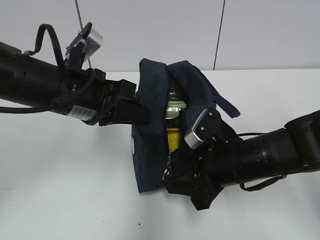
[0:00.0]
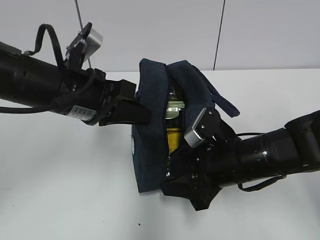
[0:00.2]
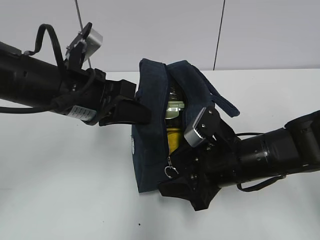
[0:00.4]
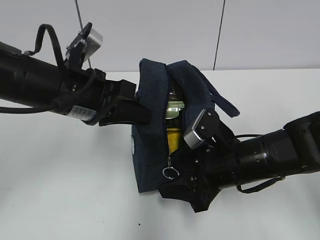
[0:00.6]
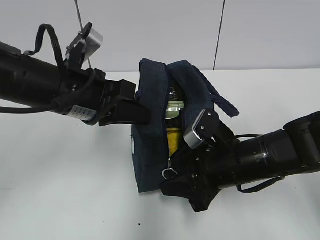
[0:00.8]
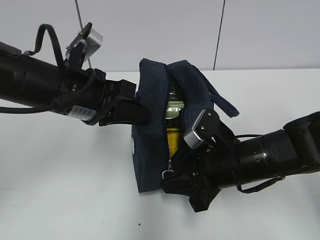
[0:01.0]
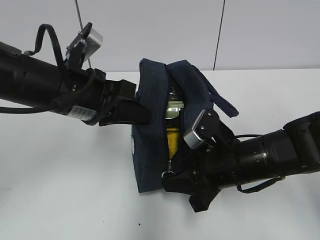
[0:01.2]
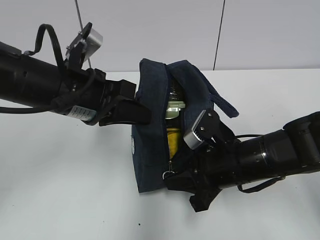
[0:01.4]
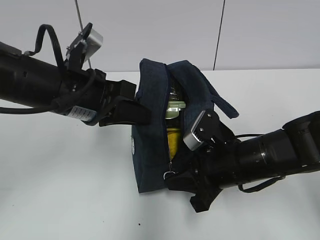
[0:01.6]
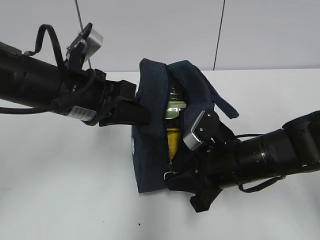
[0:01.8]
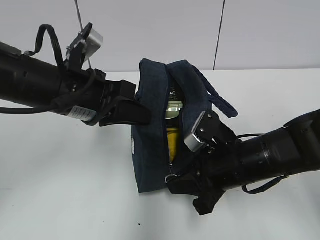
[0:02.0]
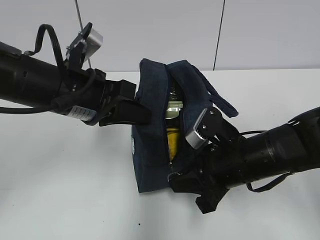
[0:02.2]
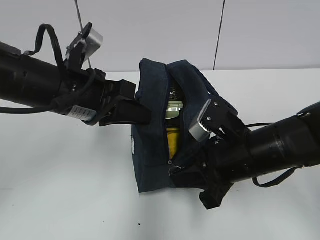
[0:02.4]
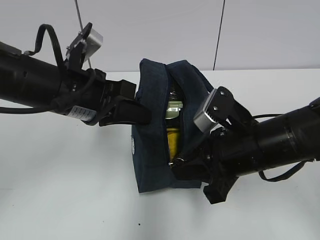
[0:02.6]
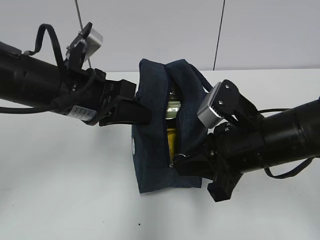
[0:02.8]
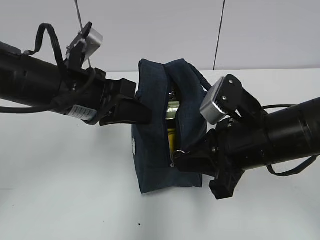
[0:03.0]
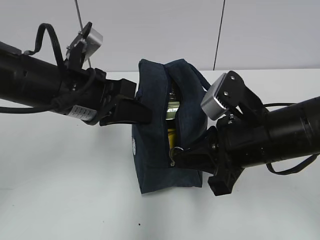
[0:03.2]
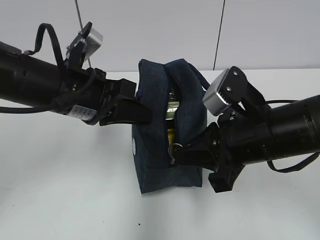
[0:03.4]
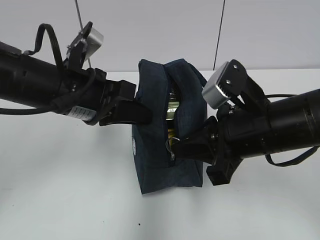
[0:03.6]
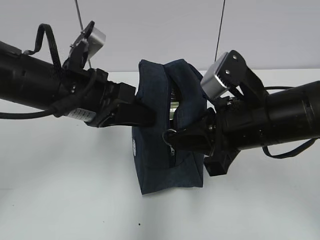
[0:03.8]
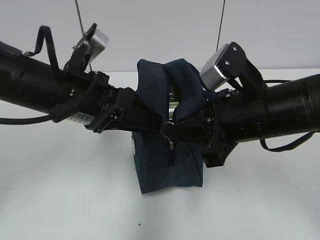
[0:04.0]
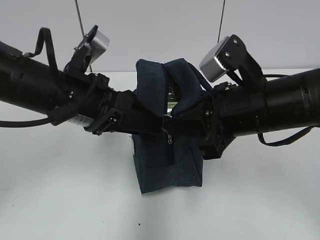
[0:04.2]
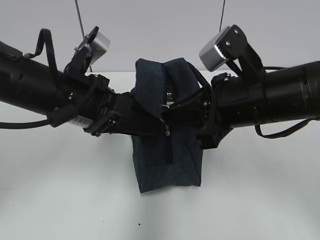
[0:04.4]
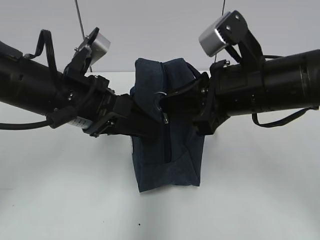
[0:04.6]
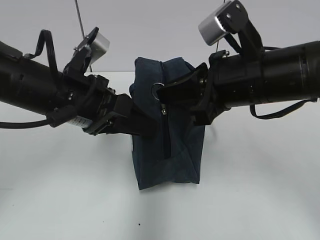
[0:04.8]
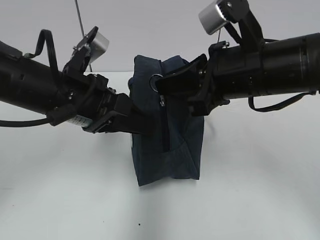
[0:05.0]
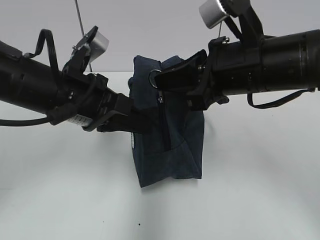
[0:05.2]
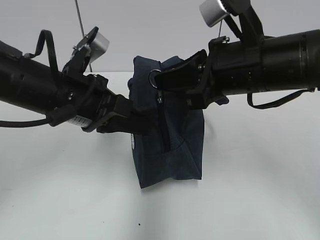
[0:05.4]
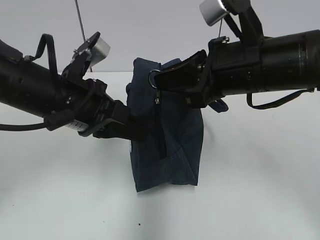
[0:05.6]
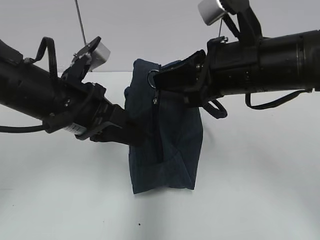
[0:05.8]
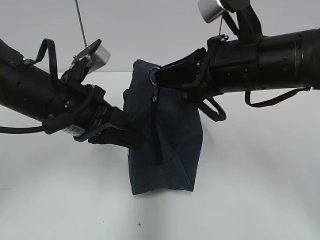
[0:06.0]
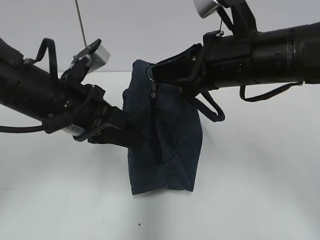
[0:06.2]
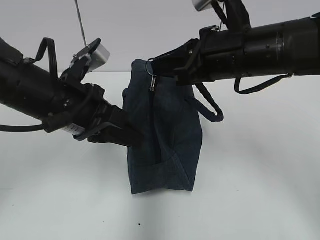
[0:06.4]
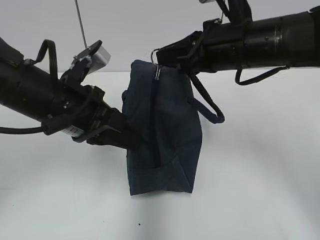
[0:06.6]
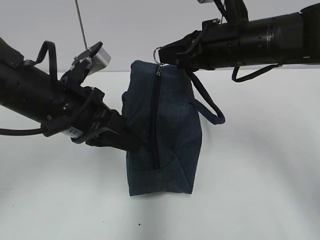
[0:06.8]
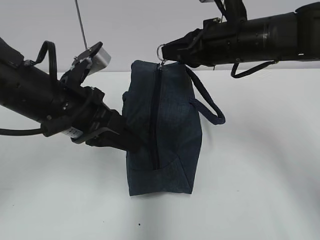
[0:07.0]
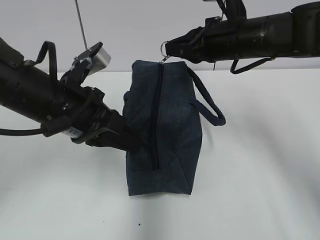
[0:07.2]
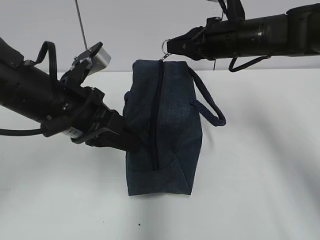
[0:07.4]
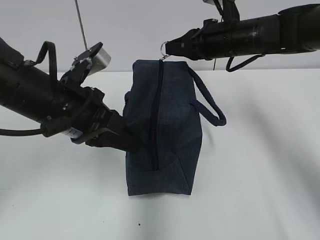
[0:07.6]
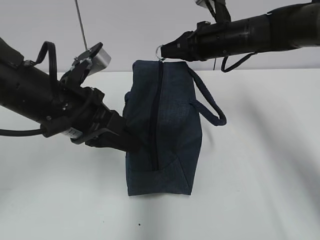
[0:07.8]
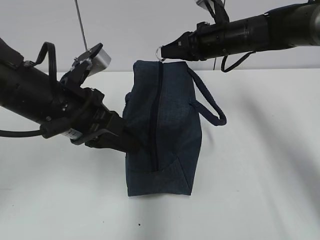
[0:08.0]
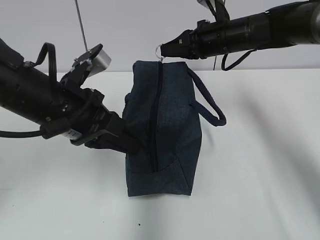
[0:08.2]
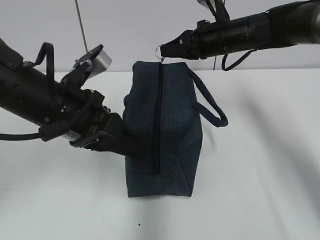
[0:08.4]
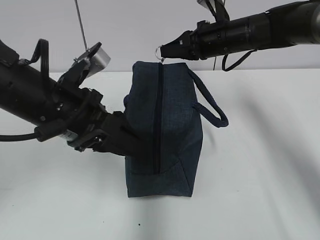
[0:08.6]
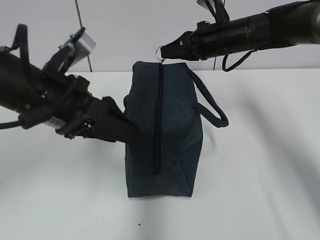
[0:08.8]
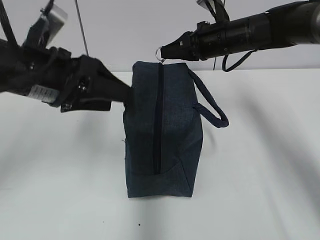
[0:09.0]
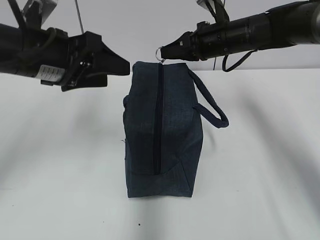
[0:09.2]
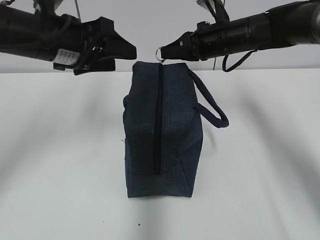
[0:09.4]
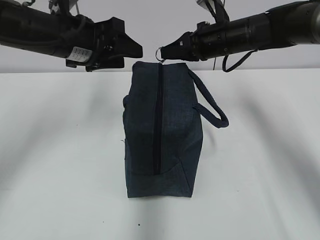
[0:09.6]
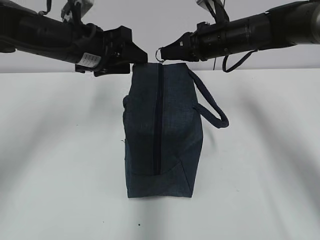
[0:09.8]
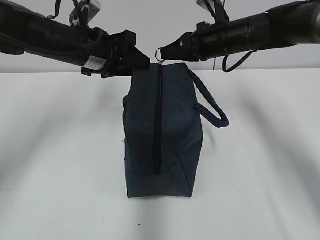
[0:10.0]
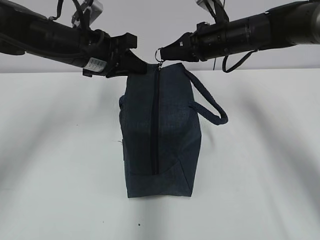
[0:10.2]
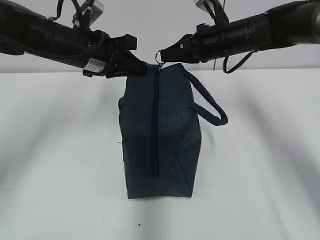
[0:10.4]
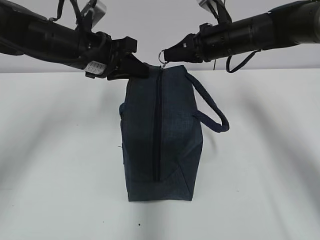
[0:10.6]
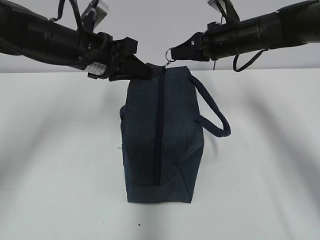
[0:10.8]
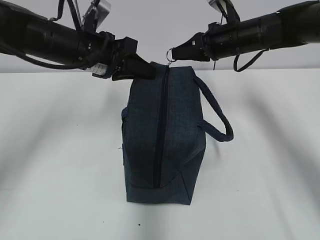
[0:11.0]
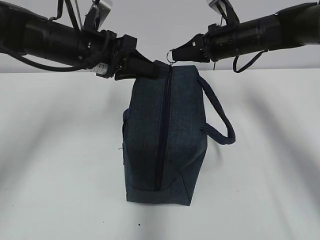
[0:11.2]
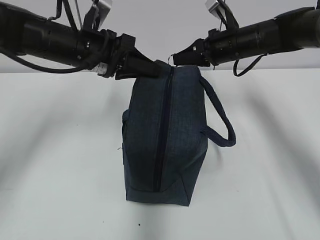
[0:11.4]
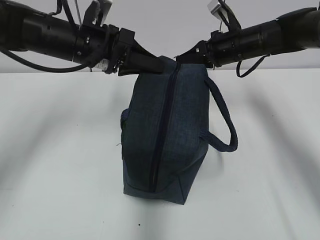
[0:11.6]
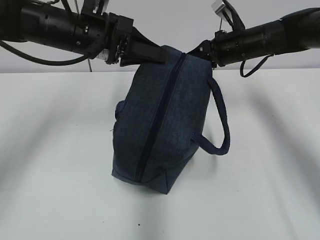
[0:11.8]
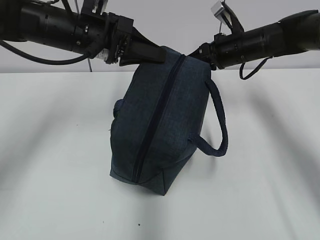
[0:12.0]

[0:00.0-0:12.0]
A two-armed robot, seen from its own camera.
0:00.0 to 0:01.6: The right gripper closes its fingers.
0:01.6 to 0:03.0: The right gripper shifts about 10 cm upward.
0:03.0 to 0:04.4: The left gripper opens up; the right gripper ends up roughly 5 cm from where it was.
0:04.4 to 0:06.0: The left gripper closes up.
0:06.0 to 0:07.6: The right gripper shifts roughly 15 cm forward.
0:07.6 to 0:09.0: The left gripper shifts by some 5 cm, and opens its fingers.
0:09.0 to 0:10.4: The left gripper travels forward by approximately 10 cm, and closes up.
0:10.4 to 0:12.0: The right gripper ends up approximately 5 cm from where it was.

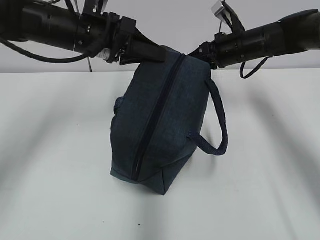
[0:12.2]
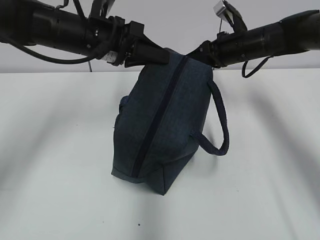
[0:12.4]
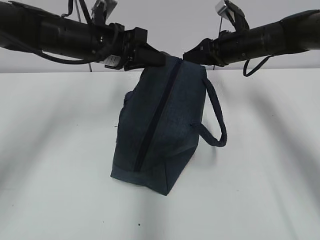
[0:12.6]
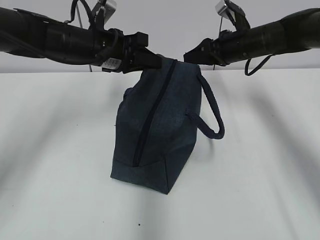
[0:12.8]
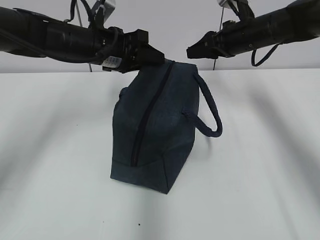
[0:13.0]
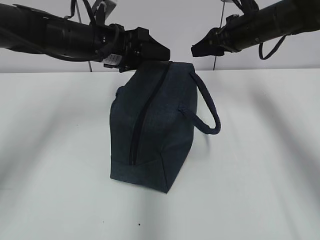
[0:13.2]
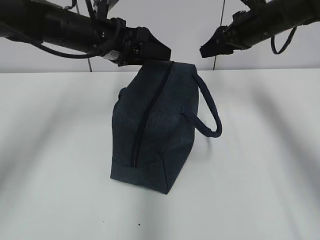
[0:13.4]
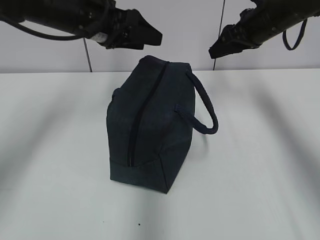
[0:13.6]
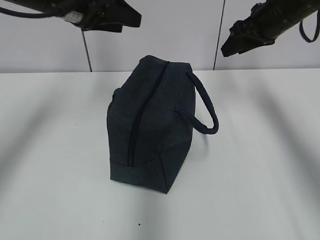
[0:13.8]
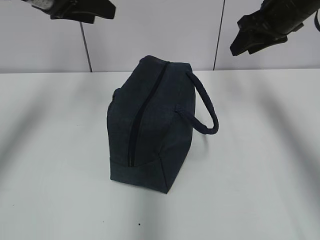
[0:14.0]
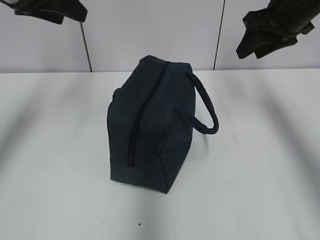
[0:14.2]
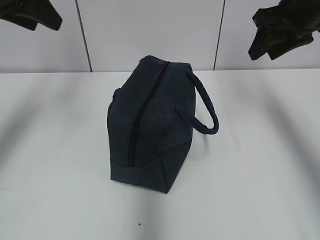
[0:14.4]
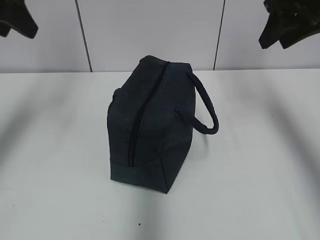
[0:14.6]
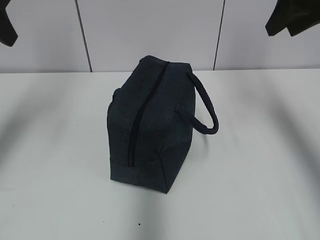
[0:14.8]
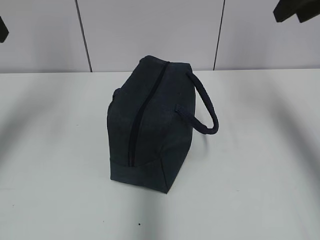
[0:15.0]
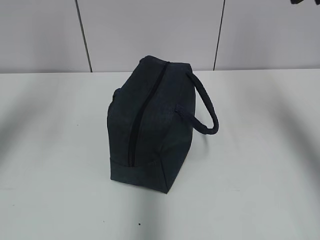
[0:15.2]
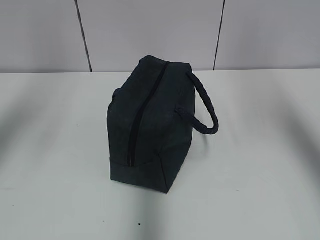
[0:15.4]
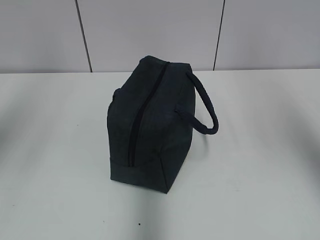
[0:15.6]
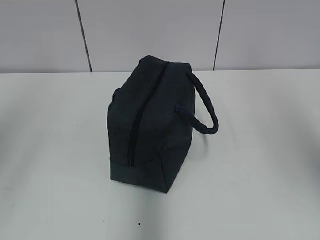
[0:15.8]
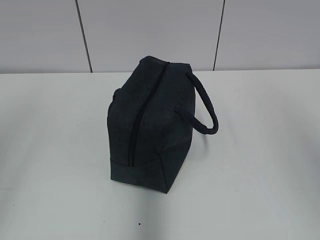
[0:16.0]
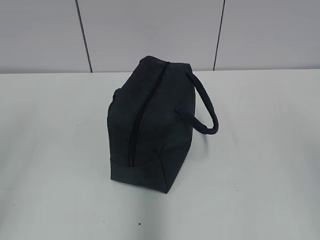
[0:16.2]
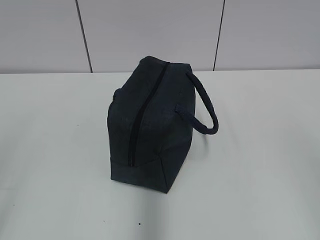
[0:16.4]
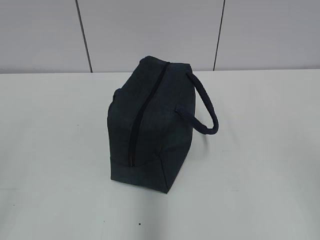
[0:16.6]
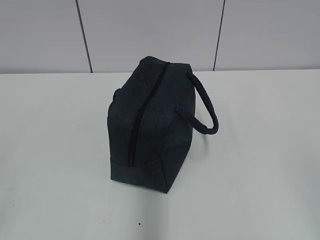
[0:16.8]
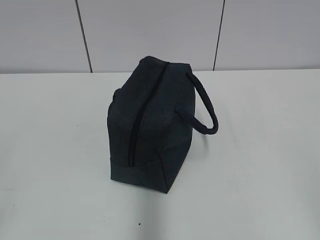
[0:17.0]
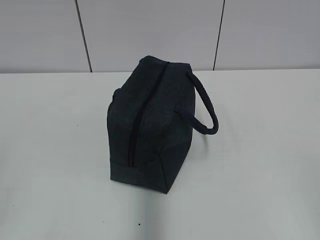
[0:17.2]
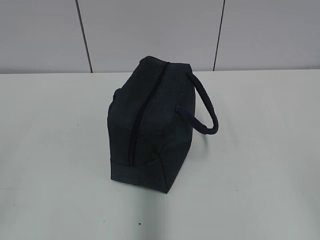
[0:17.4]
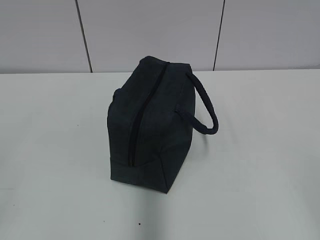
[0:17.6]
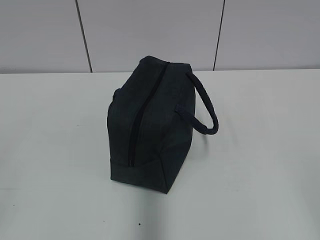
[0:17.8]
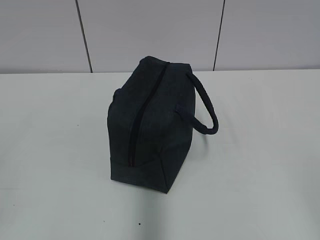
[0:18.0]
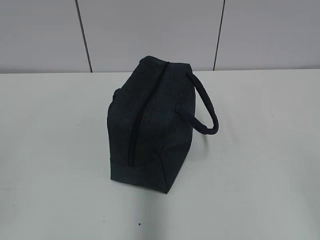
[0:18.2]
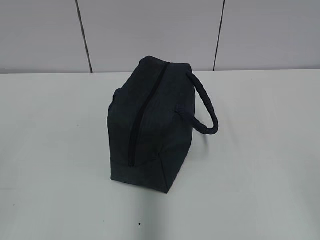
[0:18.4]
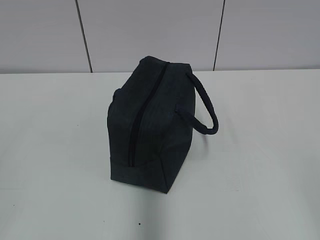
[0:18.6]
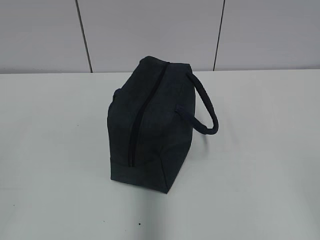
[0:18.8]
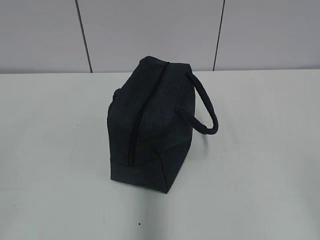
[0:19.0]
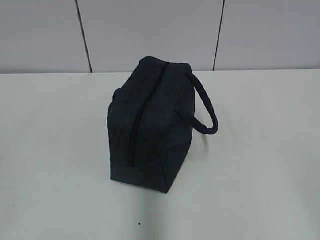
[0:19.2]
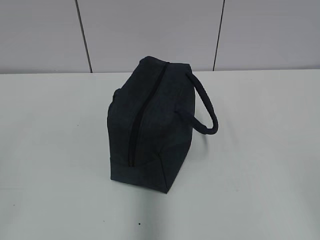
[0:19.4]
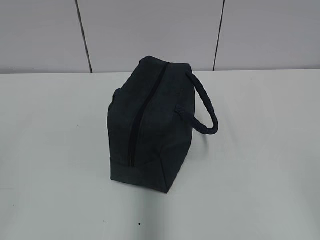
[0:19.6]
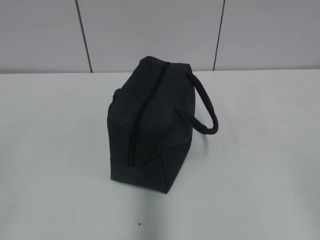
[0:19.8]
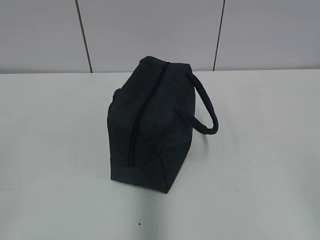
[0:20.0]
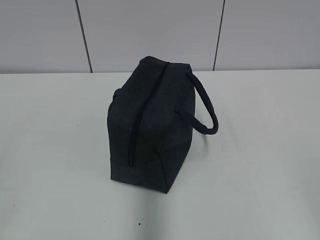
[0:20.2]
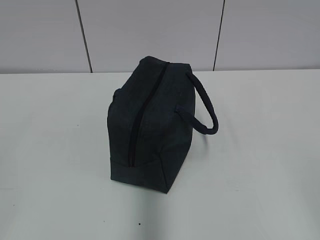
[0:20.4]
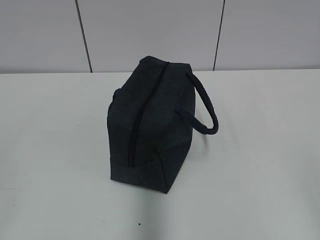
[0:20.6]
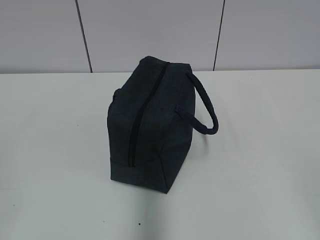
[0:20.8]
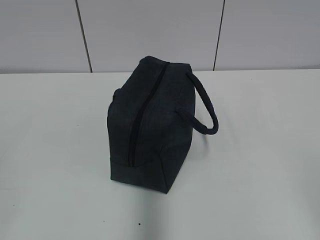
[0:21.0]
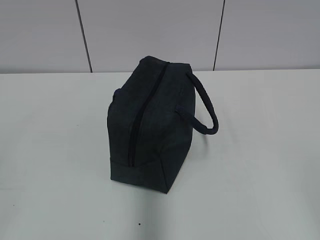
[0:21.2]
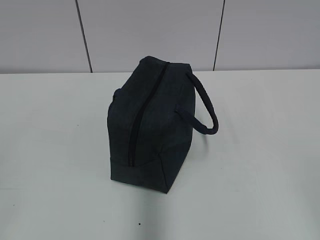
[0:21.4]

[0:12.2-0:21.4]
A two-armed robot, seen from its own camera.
Step, 0:12.8 to 0:13.2: Grab the lunch bag with your left hand.
0:12.2 to 0:13.8: The right gripper shifts roughly 10 cm upward, and opens its fingers; the left gripper heads upward, covering roughly 5 cm, and opens.
0:13.8 to 0:15.2: The right gripper is displaced upward and backward by about 20 cm, while the left gripper heads backward, to the left and upward, covering approximately 20 cm.
0:15.2 to 0:16.8: The left gripper heads backward and downward, covering about 35 cm, while the right gripper heads backward, covering about 30 cm.
0:19.8 to 0:21.4: Both grippers stay about where they are.
